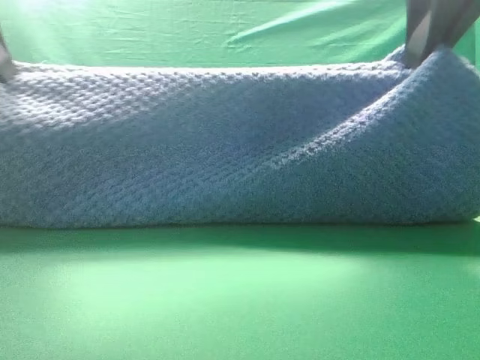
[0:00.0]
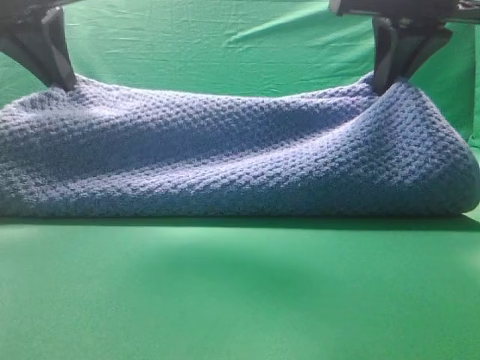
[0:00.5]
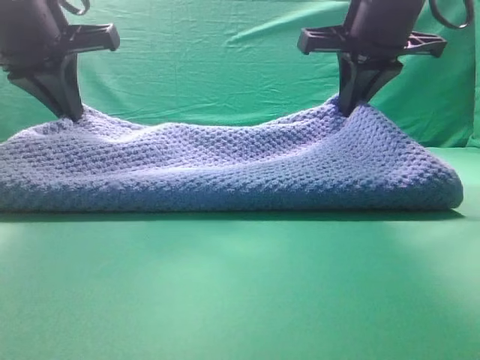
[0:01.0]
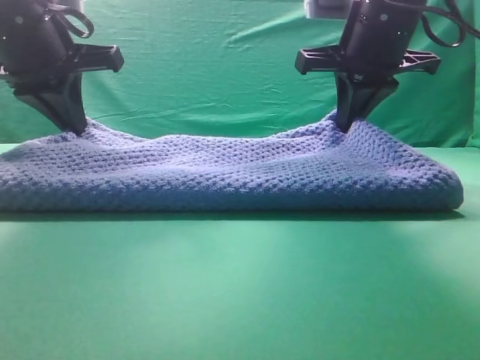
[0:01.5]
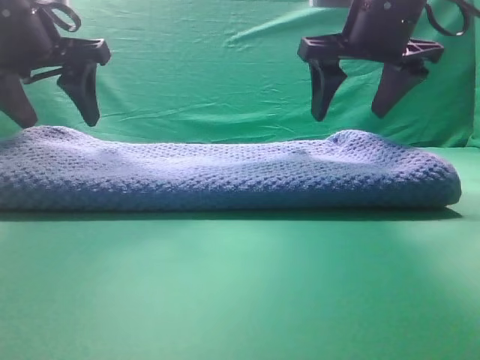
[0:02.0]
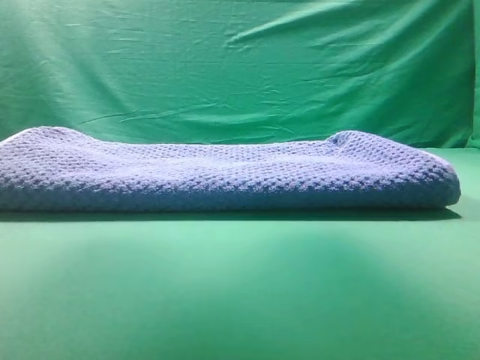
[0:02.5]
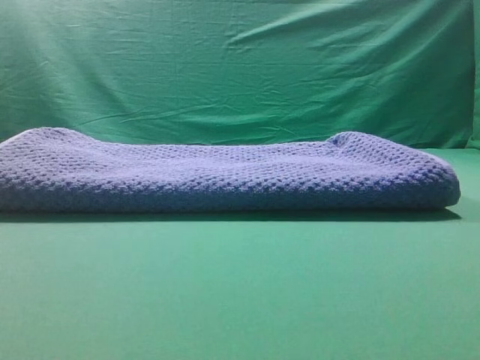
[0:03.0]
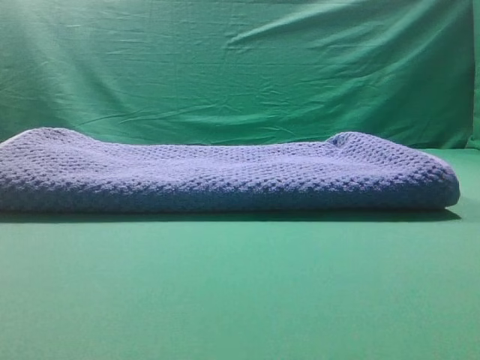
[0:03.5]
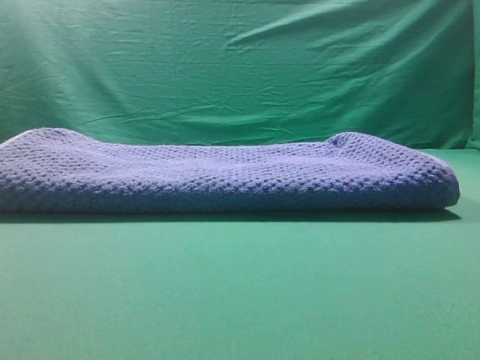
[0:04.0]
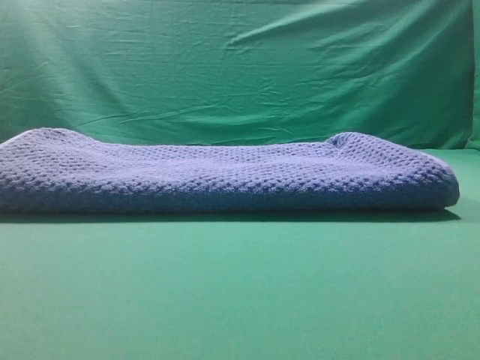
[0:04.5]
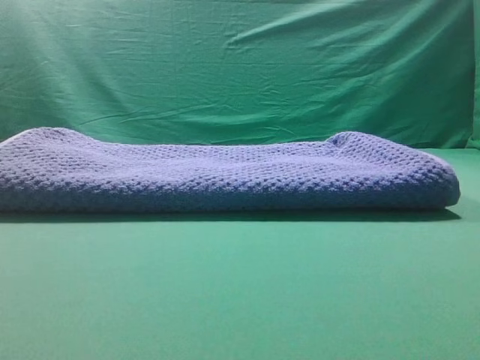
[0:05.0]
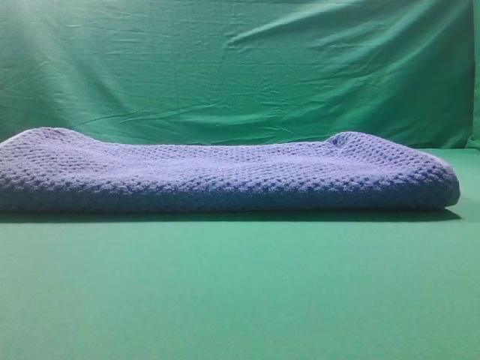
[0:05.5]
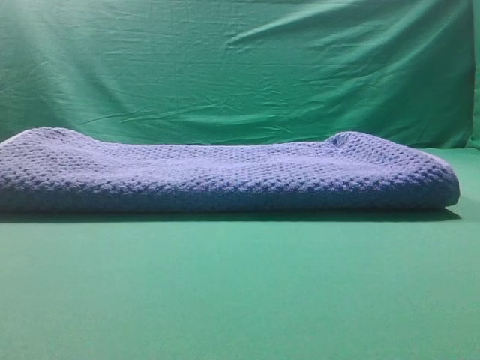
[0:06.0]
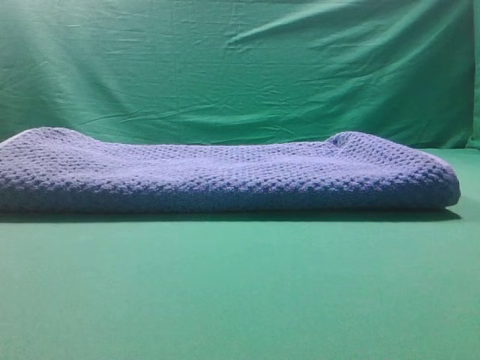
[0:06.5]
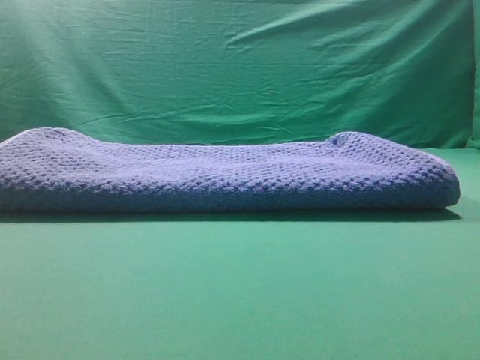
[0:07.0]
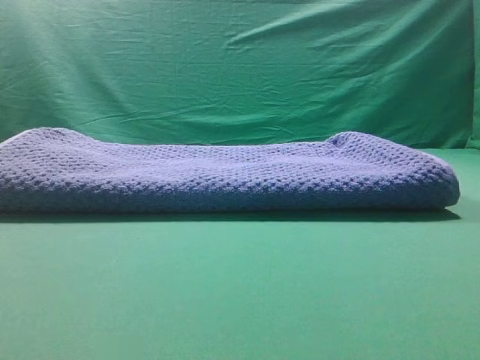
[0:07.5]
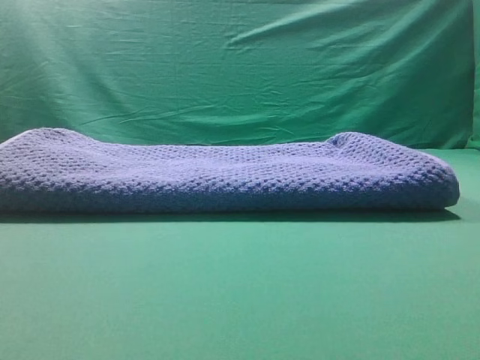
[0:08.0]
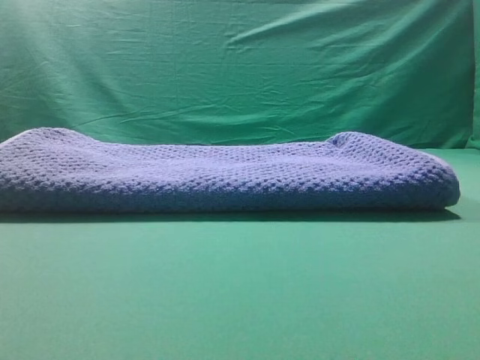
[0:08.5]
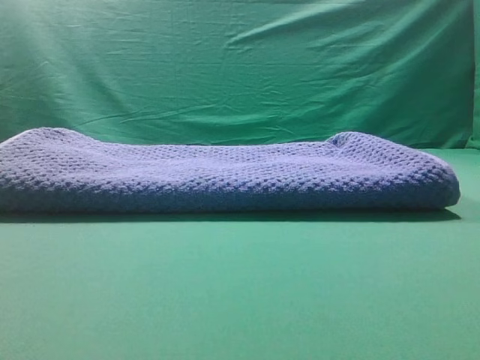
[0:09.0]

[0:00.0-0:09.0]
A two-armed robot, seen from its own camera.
Task of the whole recording: fold the towel on the table twice.
Step, 0:00.0 to 0:02.0: Fold the towel twice on the table.
